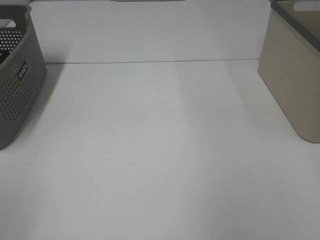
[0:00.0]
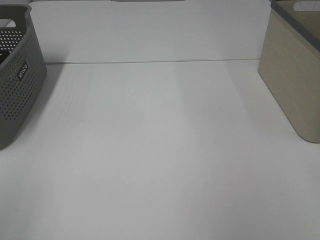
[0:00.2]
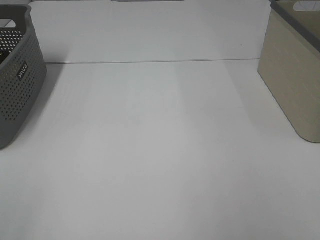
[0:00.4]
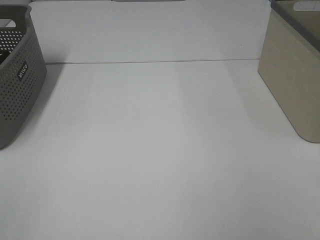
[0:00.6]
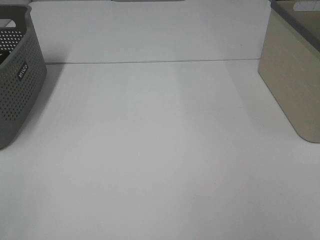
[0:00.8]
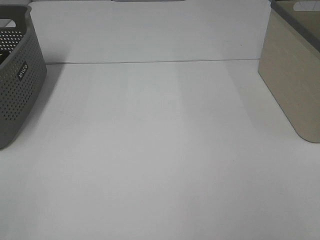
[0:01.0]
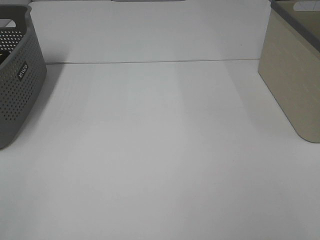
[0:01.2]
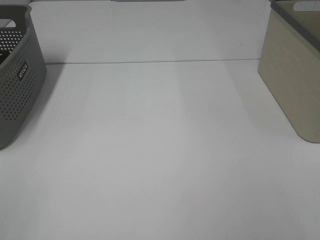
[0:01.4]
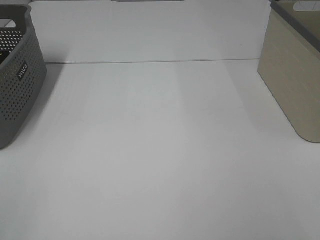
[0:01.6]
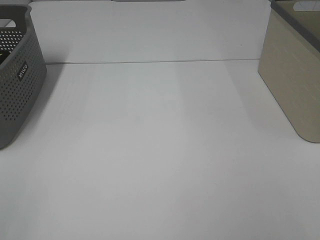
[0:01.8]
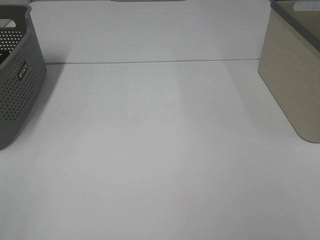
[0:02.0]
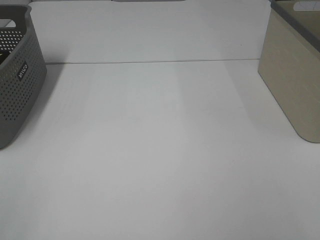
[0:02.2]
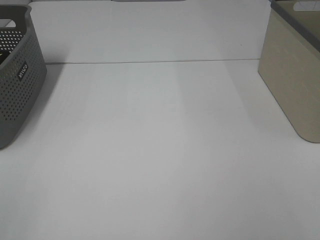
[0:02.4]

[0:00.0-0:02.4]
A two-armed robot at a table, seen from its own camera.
1.2 to 2.4 s: Both grippers stay about where they are.

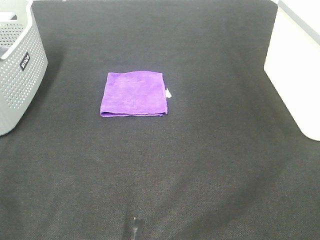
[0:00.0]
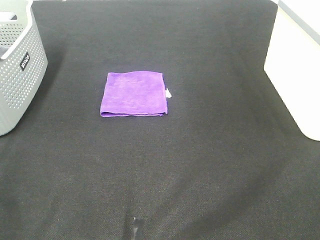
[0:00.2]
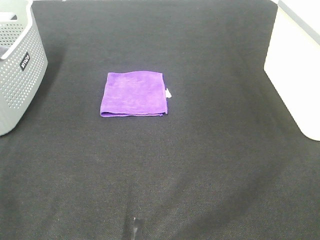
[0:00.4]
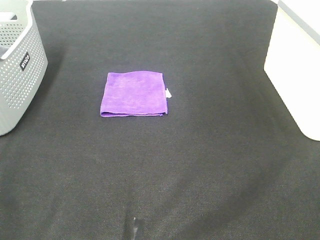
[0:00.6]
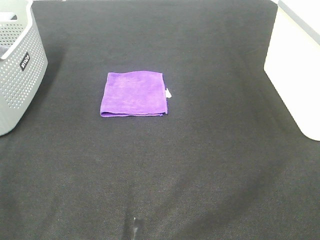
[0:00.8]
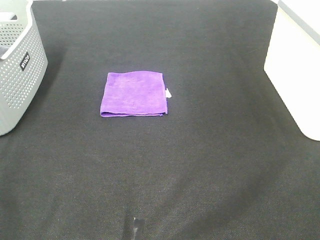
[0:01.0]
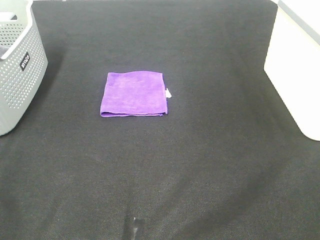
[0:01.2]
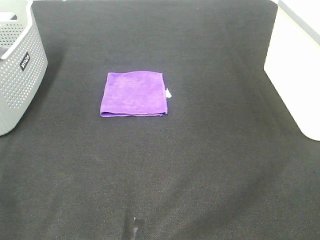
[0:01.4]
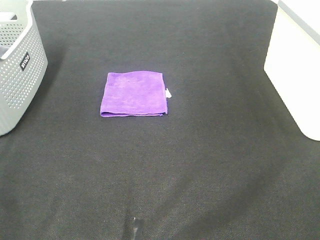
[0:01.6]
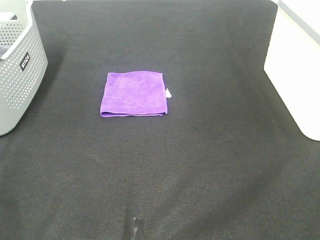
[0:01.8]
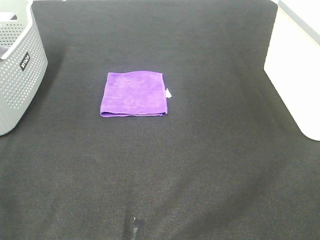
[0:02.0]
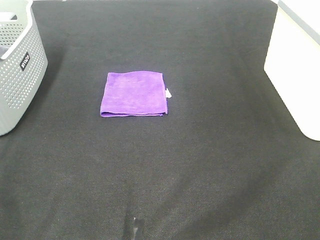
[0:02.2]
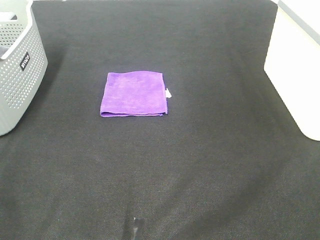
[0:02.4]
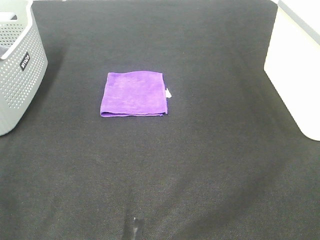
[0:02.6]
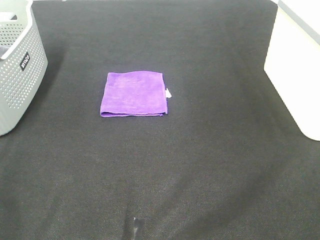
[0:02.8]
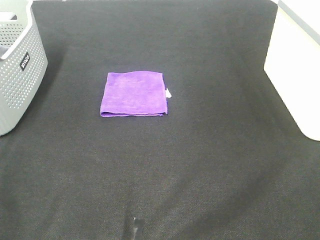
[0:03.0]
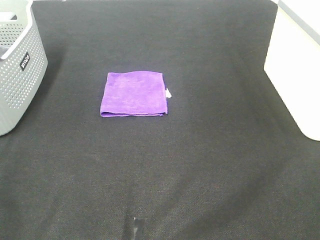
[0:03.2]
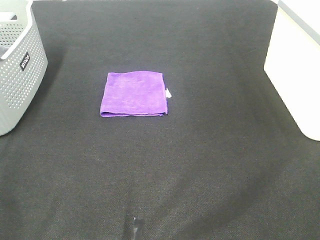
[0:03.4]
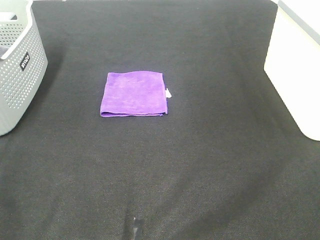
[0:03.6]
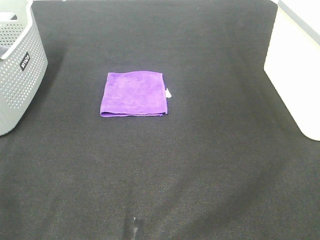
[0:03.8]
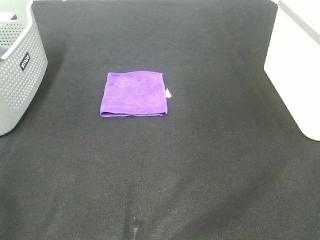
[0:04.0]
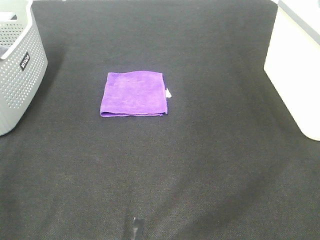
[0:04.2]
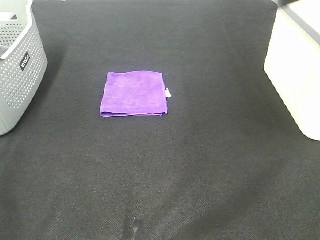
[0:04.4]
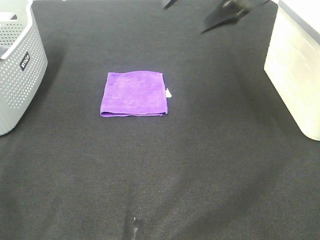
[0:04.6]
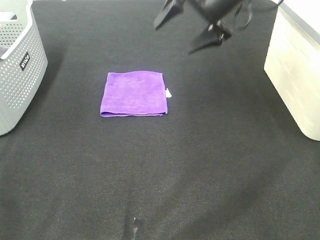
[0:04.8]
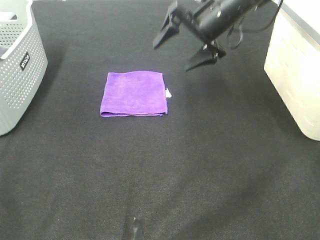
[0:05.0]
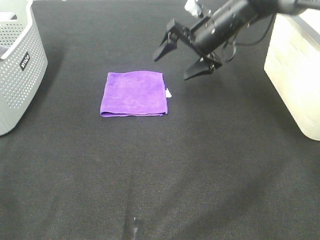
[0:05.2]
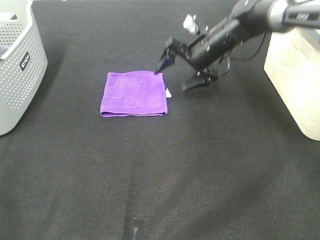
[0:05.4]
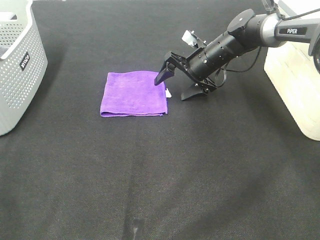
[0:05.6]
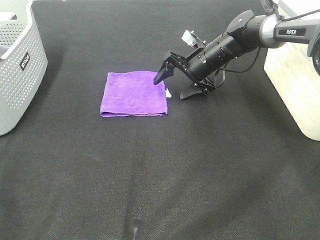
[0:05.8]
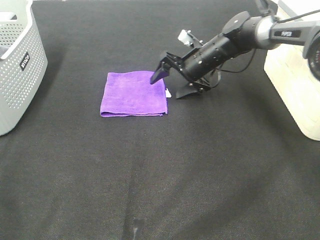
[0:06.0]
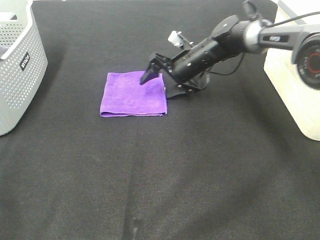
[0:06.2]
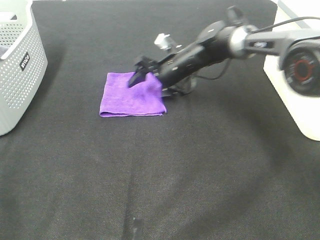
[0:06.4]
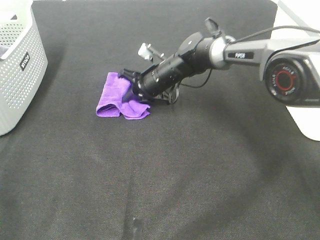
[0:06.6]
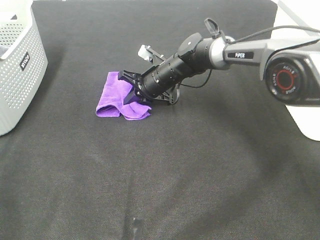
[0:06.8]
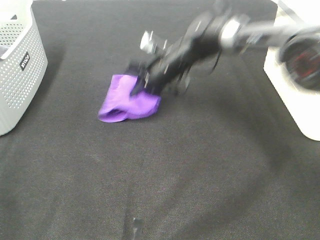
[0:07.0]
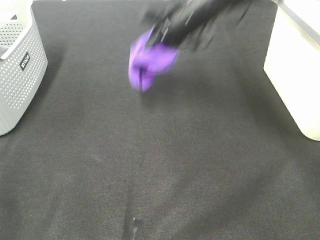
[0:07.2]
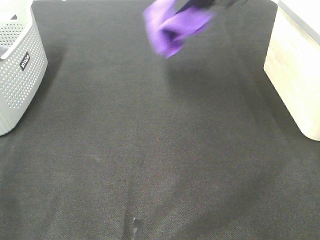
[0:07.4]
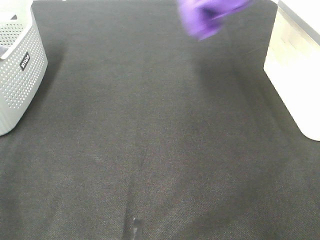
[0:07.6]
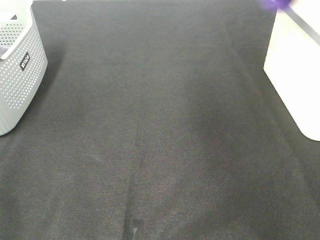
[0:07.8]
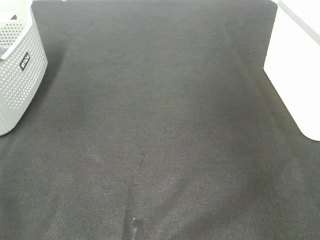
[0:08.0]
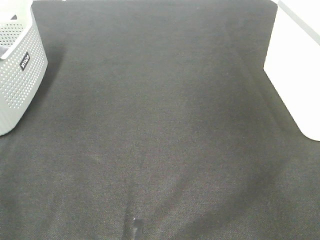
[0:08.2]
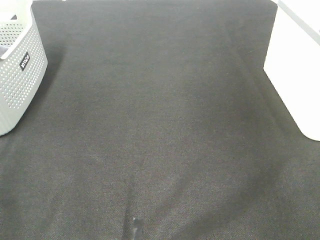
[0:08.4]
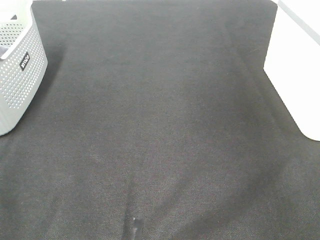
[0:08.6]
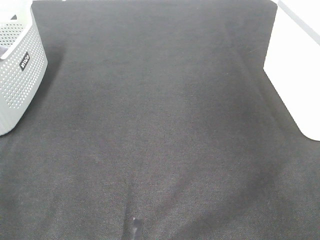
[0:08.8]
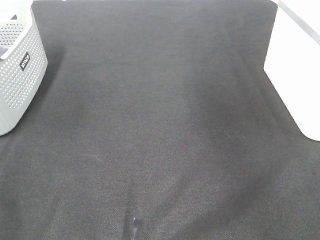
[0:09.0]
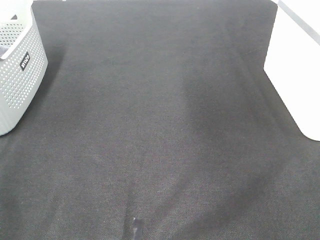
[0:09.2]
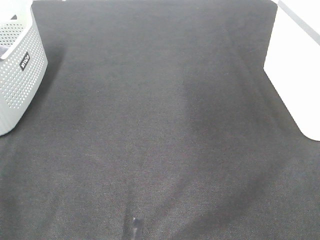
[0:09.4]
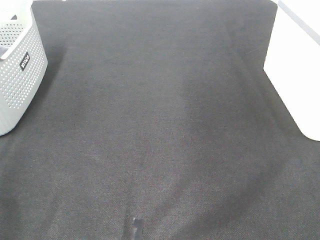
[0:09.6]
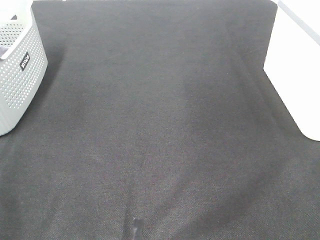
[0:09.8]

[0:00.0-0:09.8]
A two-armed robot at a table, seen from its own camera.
Step, 0.0 to 6.6 s: Right hand: grab the folded purple towel.
Step, 6.8 to 8.6 s: Right hand: place the purple towel in right basket.
0.0 to 2.8 s: Neither gripper changes place.
4.2 to 5.6 s: The right gripper shifts approximately 40 cm downward, forward and to the left.
5.6 to 7.0 s: The right gripper heads to the left, covering about 10 cm, and closes up.
7.0 to 8.4 s: The right gripper travels to the right and upward by some 40 cm, and opens.

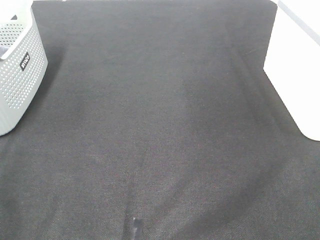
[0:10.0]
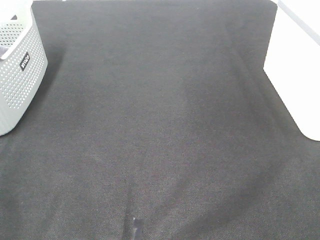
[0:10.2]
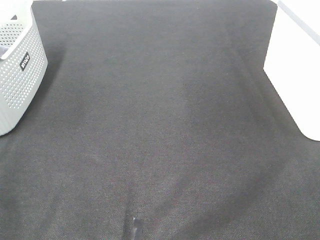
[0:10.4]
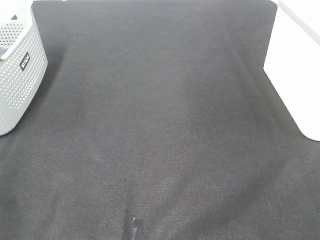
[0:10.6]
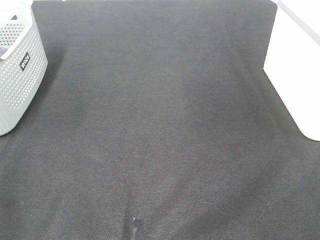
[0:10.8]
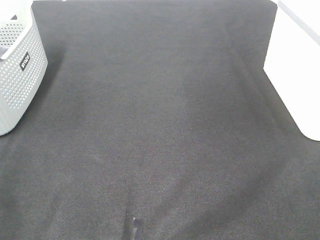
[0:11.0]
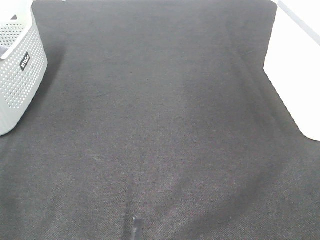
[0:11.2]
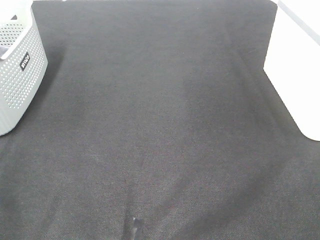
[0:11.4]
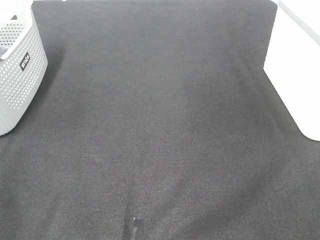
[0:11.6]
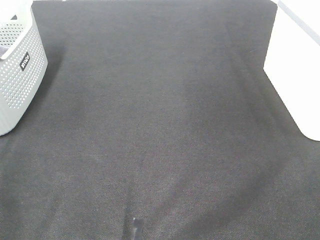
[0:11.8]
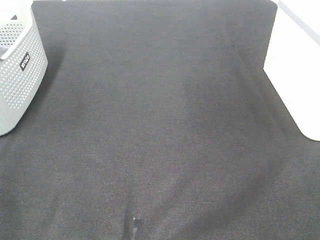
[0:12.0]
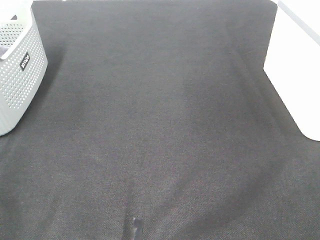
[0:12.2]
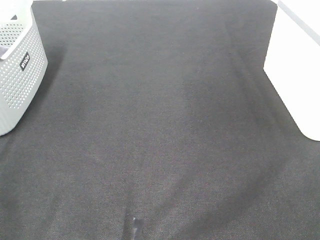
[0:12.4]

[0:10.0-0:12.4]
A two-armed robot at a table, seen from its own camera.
11.2 to 12.4 s: Neither gripper changes place.

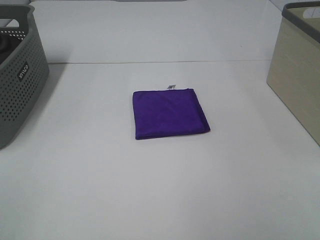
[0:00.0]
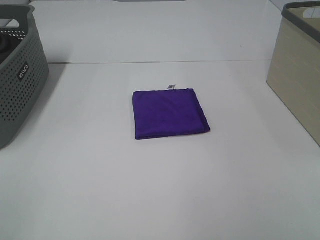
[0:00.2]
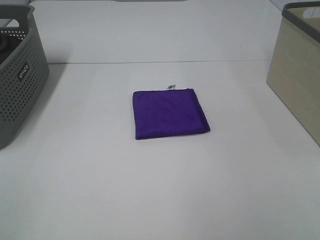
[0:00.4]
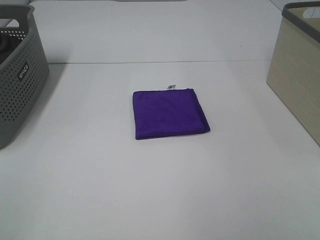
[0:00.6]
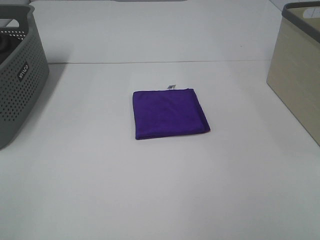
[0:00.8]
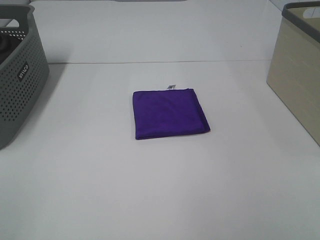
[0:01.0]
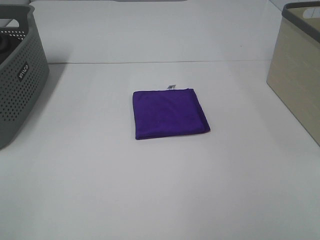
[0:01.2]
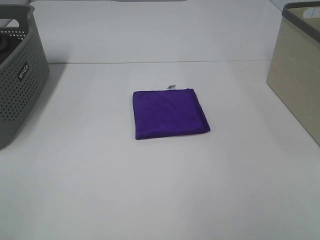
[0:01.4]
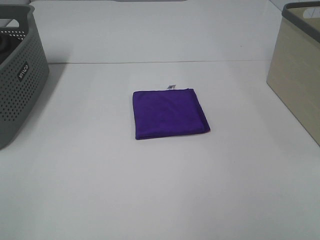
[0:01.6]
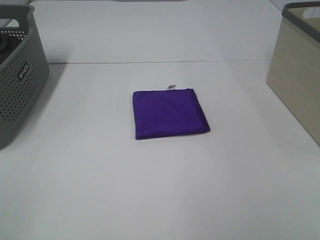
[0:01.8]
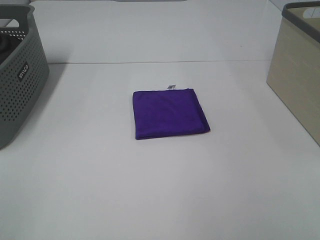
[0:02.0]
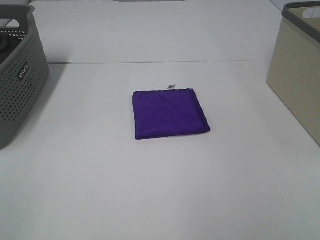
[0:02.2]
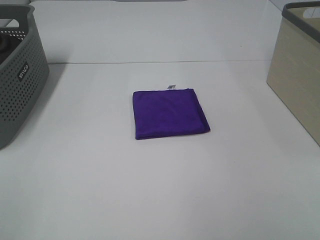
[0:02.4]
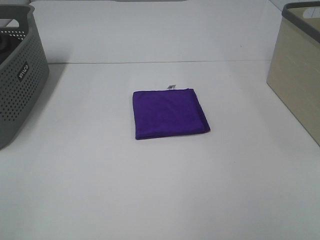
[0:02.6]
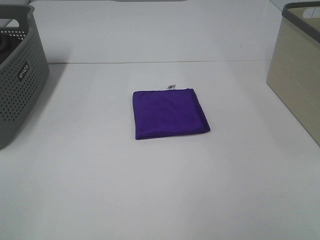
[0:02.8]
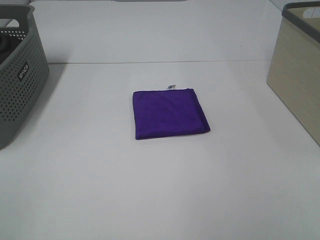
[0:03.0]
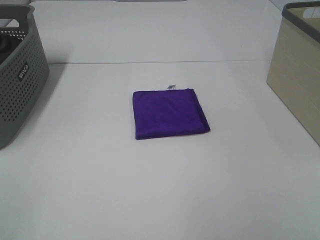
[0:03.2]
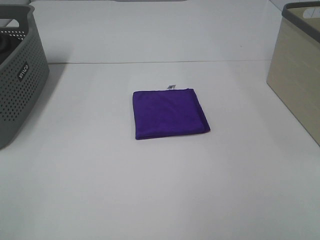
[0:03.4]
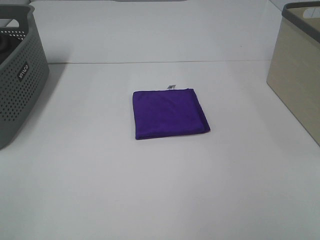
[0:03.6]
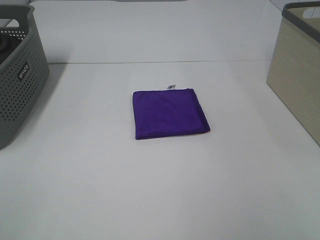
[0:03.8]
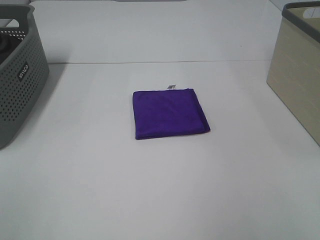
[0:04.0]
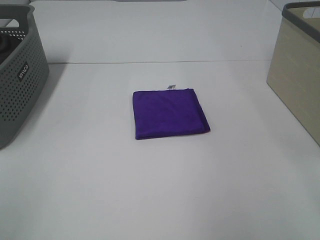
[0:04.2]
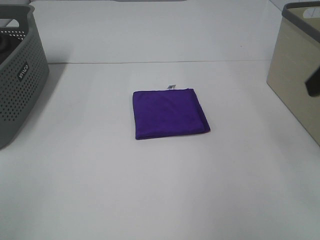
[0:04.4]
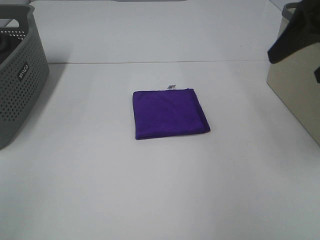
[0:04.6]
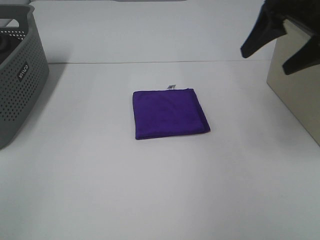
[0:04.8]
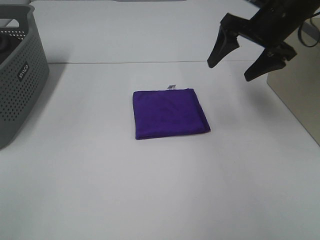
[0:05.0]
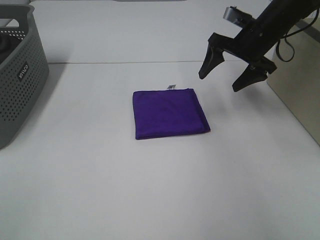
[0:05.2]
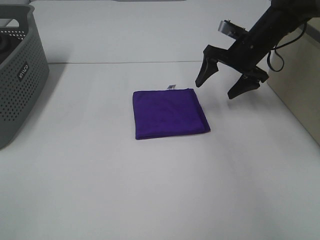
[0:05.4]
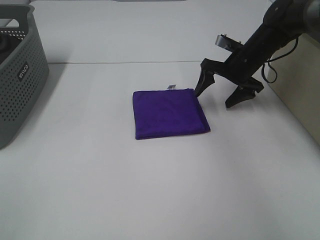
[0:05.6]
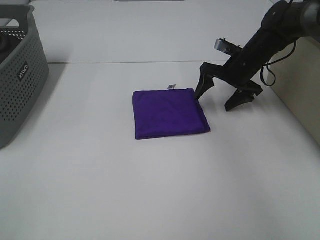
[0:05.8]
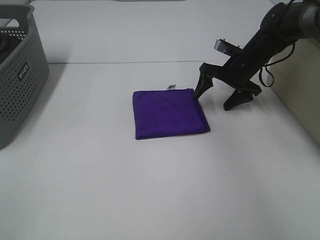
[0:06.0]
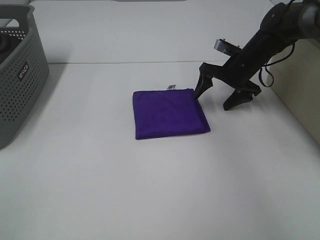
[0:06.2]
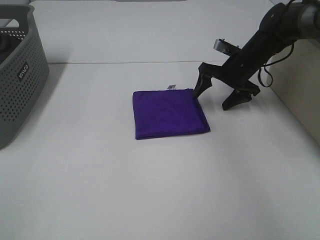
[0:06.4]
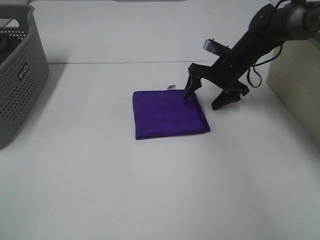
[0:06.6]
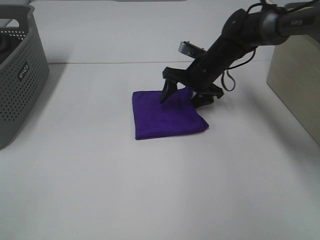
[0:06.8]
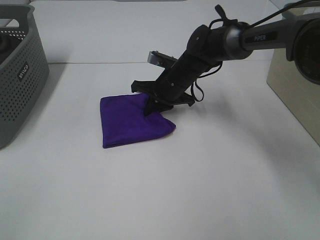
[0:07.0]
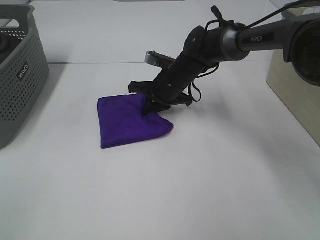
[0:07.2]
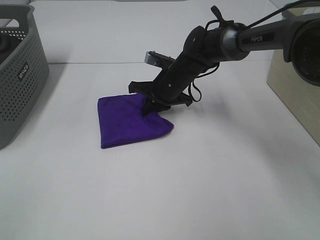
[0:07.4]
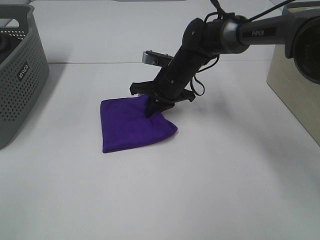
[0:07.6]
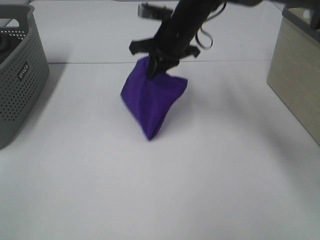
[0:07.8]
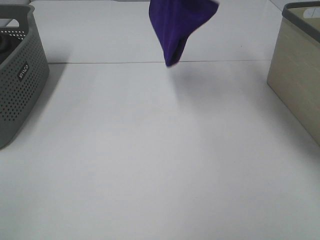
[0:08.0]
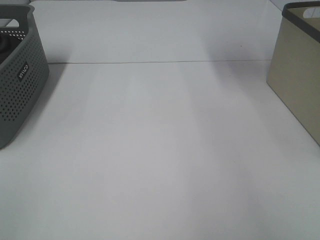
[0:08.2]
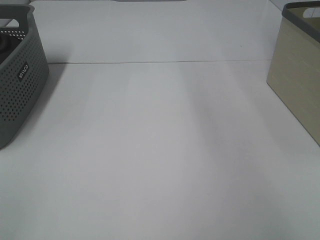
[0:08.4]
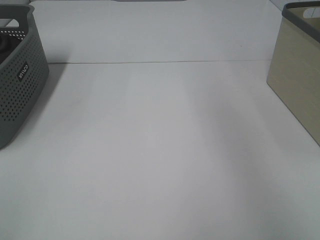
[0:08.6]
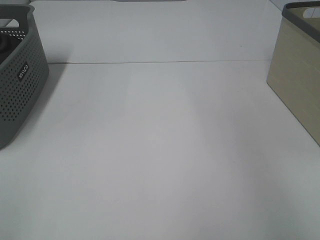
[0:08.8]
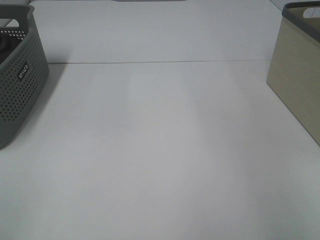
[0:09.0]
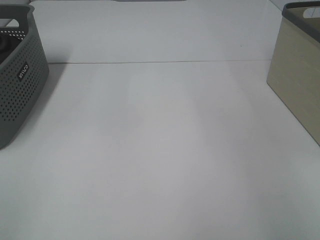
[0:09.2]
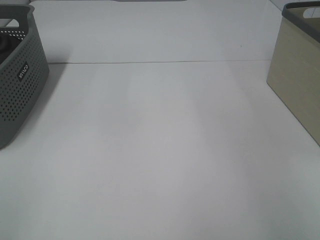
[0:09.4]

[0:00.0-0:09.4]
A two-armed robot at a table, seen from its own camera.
Step, 0.0 to 7.4 s: Right hand: grab the folded purple towel.
0.0 to 3.2 s: Neither gripper changes place.
3.2 to 4.8 s: The right gripper is displaced forward by about 35 cm.
4.8 to 6.2 s: The right gripper shifts about 20 cm downward and forward.
6.2 to 7.8 s: The right gripper heads to the left and upward, covering roughly 20 cm, and closes up.
7.8 to 9.4 s: The right gripper travels to the right by approximately 40 cm, and opens up.
